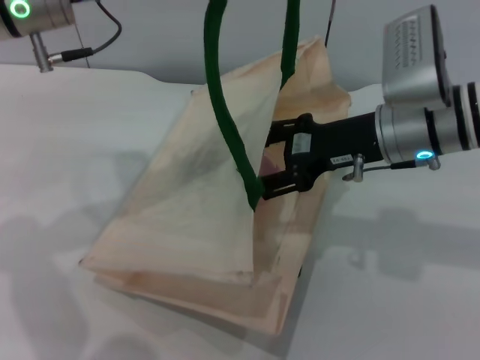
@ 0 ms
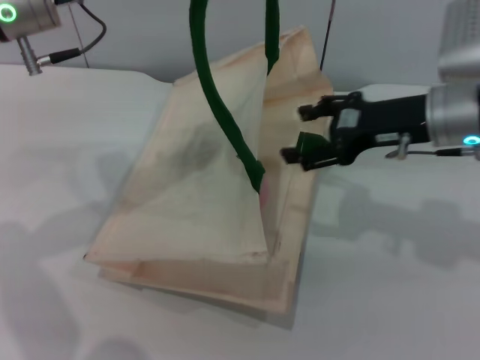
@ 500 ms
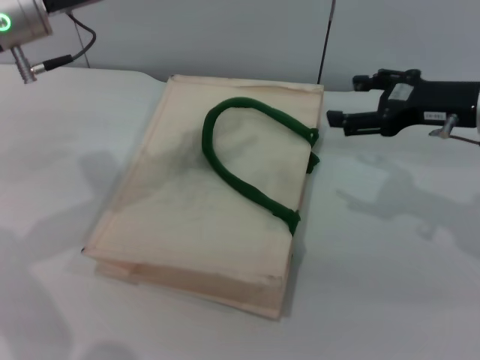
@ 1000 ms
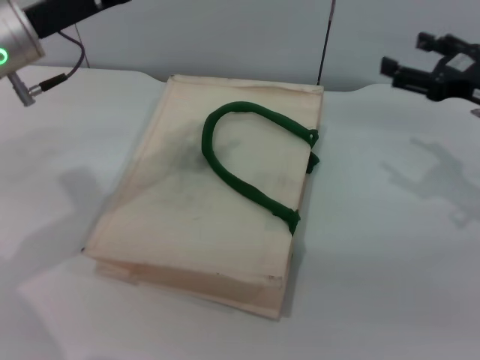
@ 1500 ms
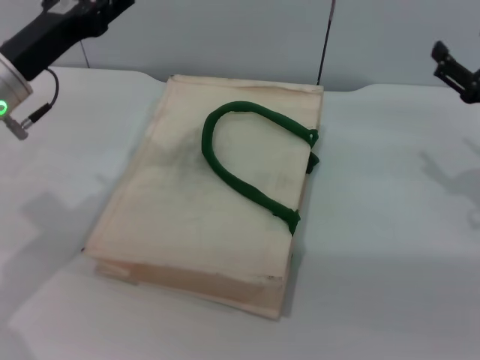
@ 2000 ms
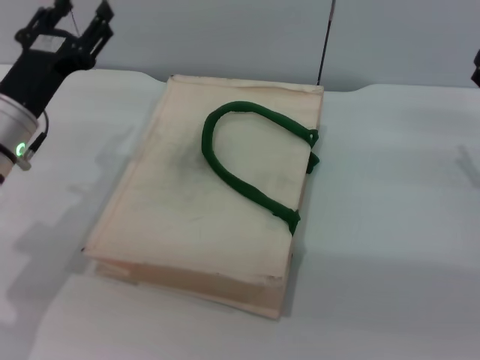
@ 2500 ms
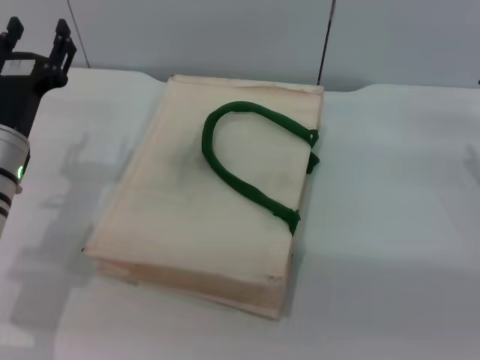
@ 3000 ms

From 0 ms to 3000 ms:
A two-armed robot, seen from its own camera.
Task of the whole recording: pick up the peach from the table and place it in the white handbag.
Step, from 1000 ms to 1500 ms: Lower the woven bag with the left gripper to close it.
From 0 ms to 1500 ms: The right gripper is displaced to the right by about 15 cm, and opens its fingers. Meanwhile the left gripper shifts by approximately 5 cm, and opens its fingers.
From 1500 ms to 3000 ms: The right gripper heads downward, covering approximately 5 cm; the left gripper heads downward and backward, covering about 15 cm.
